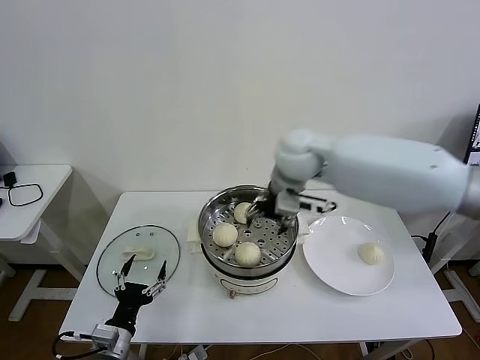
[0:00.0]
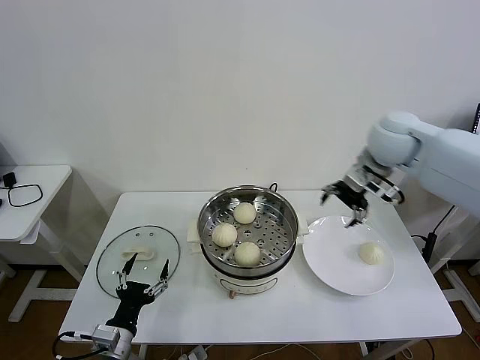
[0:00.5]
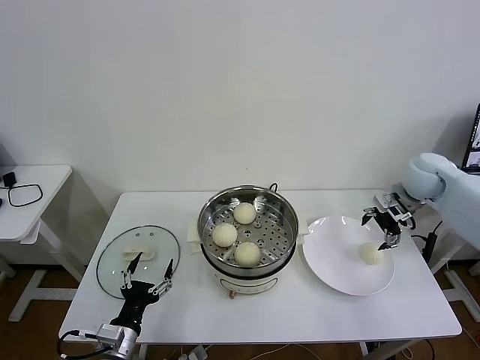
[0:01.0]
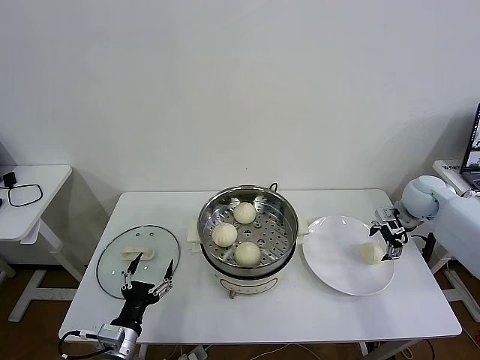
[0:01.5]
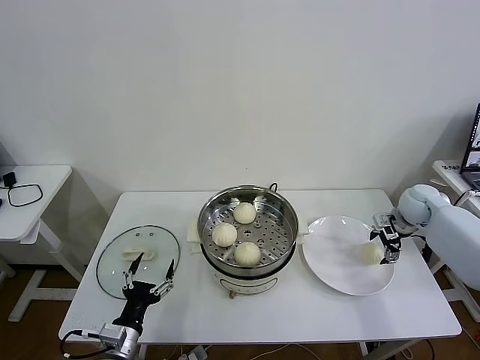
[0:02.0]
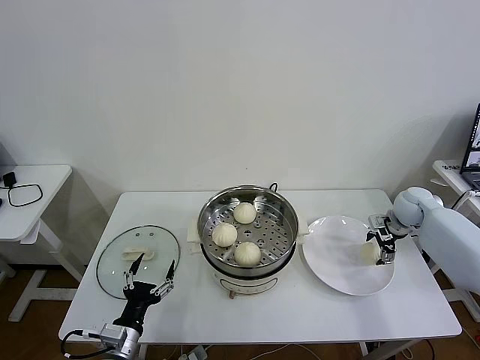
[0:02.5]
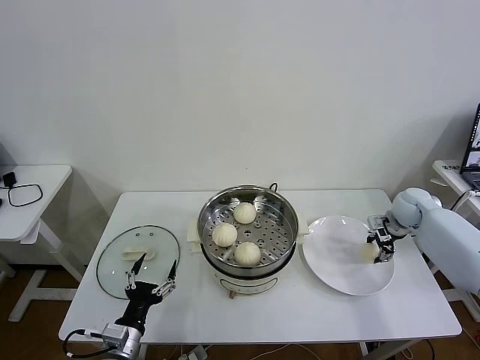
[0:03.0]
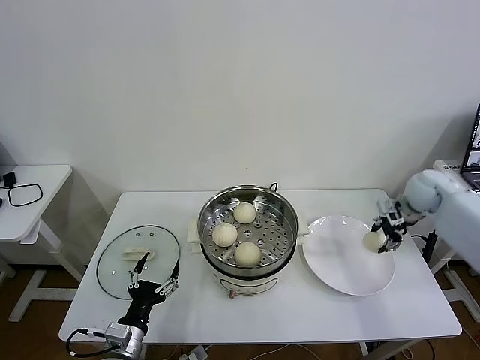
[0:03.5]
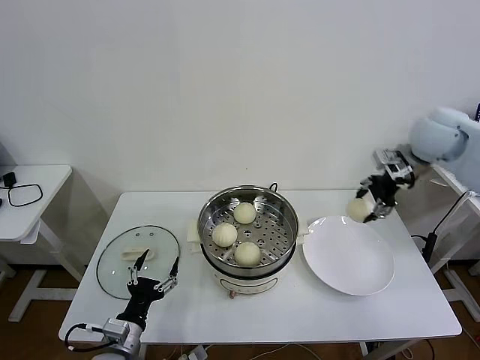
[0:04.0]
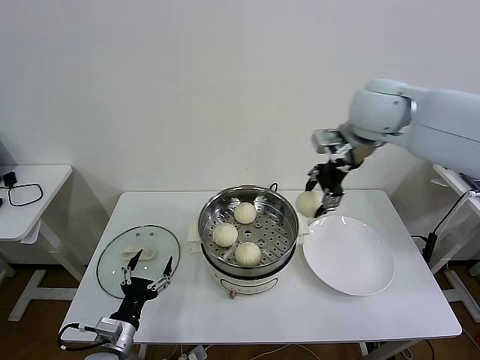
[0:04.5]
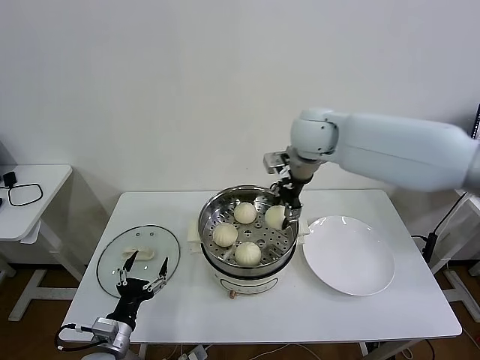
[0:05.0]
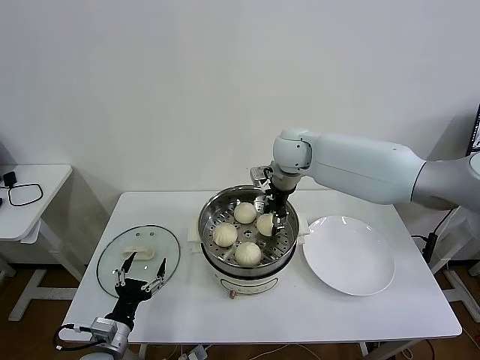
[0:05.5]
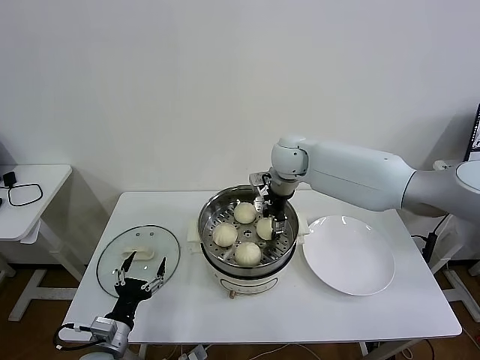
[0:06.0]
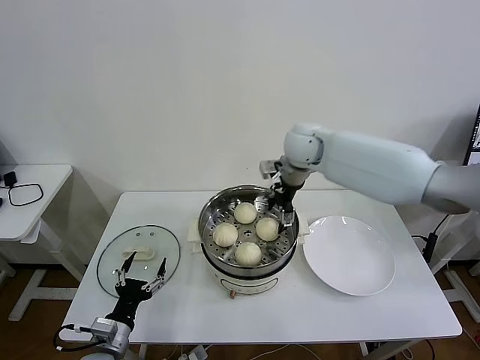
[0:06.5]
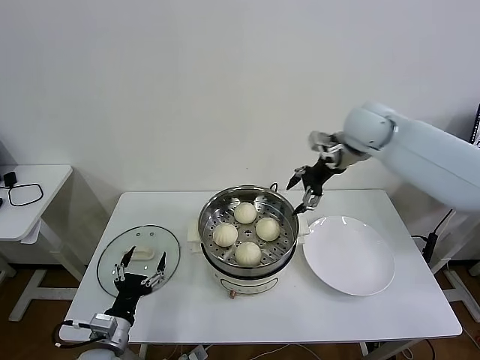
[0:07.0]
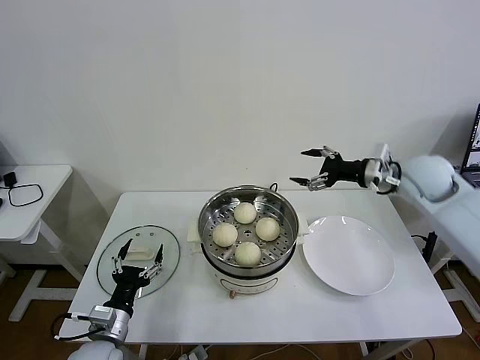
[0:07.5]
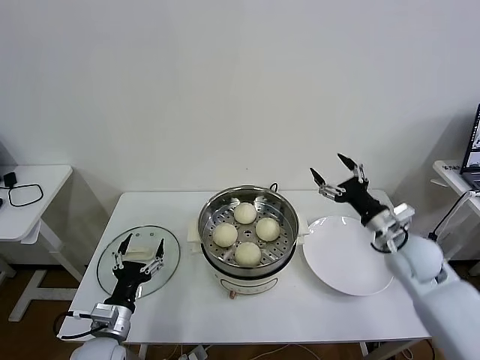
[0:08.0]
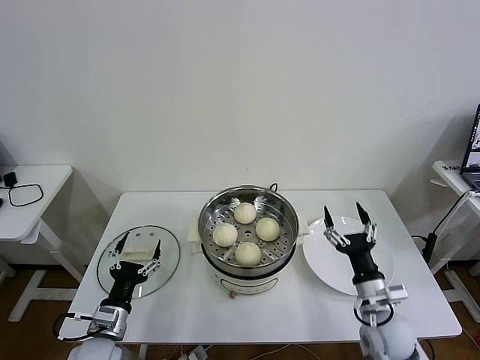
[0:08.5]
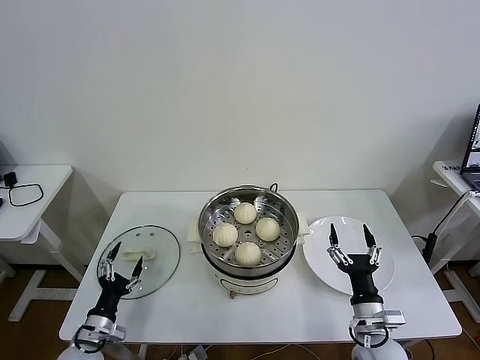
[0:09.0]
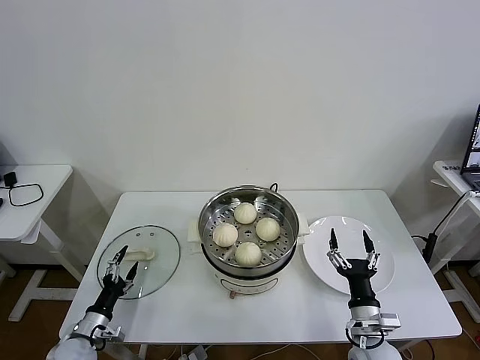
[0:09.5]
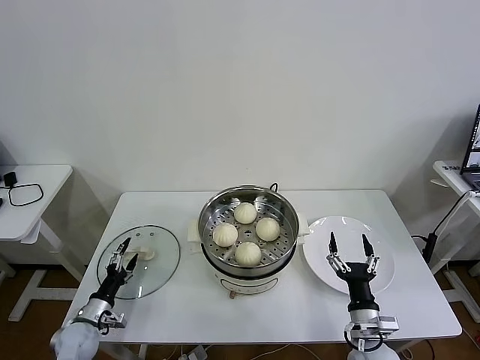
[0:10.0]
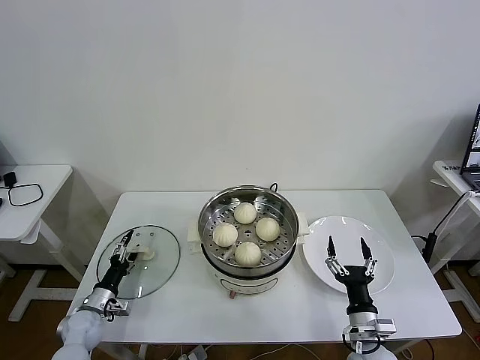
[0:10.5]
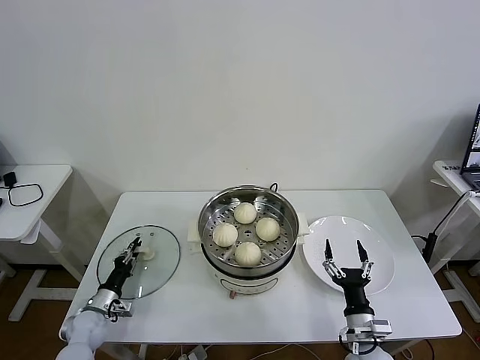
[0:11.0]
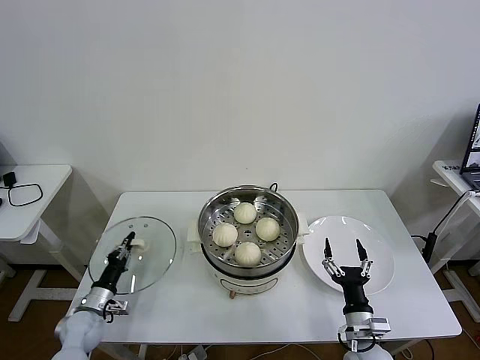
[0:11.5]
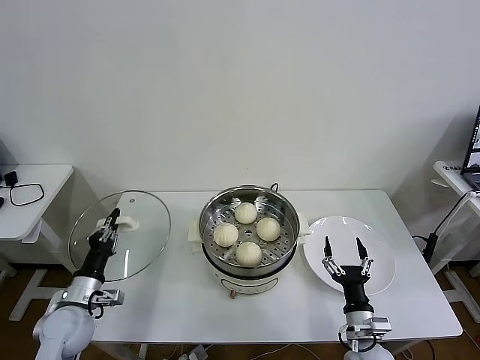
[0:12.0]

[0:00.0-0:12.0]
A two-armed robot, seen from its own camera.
Task of the whole recording: take steamed baozi put them in steamer then cover it.
Step, 0:00.0 to 0:03.0: Grasp the baozi in the plate with right gripper.
Step, 0:03.5 to 0:06.0: Place the baozi on the steamer with right gripper.
Step, 0:06.5 to 0:11.0: Grasp the pot lid with left gripper.
0:00.0 to 0:02.0: The right gripper moves to the right and downward, about 40 cm.
0:02.0 to 0:04.0: The right gripper is displaced upward and to the left by about 25 cm, and closes up.
0:04.0 to 0:06.0: The right gripper moves to the left and downward, approximately 25 cm, and opens.
0:06.0 to 0:08.0: The right gripper heads to the right, backward and downward, covering some 35 cm, and opens up.
0:08.0 to 0:10.0: The right gripper shifts some 25 cm downward, backward and to the left. The left gripper heads to the left, downward and forward, covering about 20 cm.
0:10.0 to 0:12.0: The left gripper shifts approximately 10 cm upward, and closes its fingers.

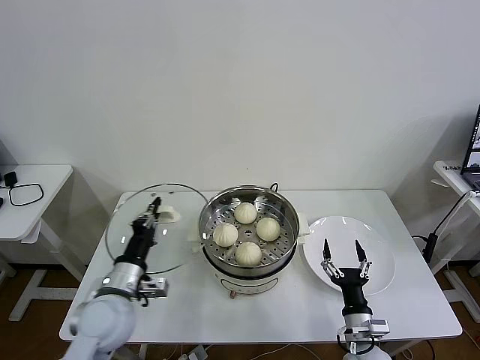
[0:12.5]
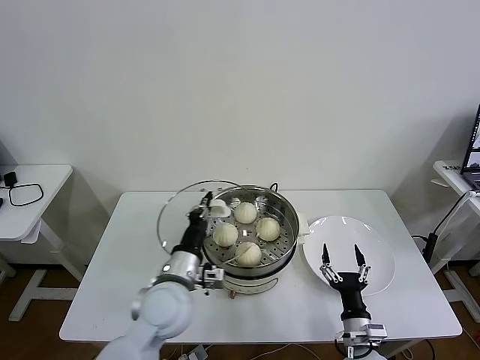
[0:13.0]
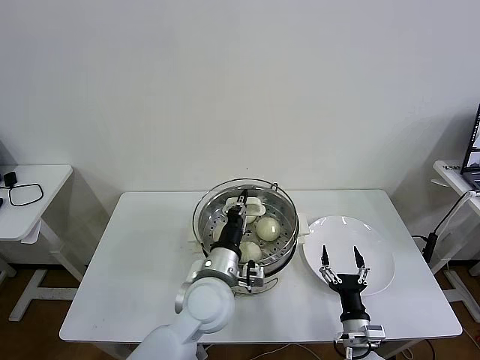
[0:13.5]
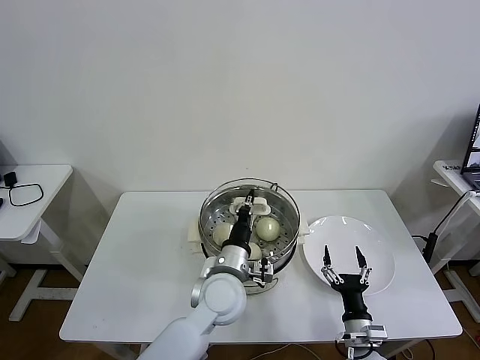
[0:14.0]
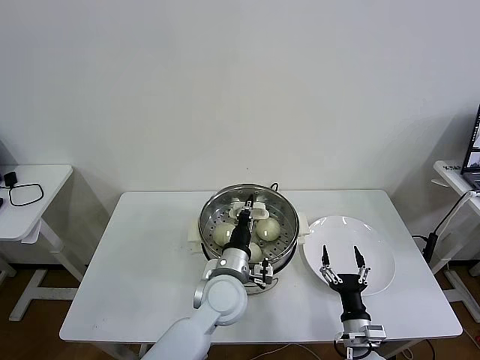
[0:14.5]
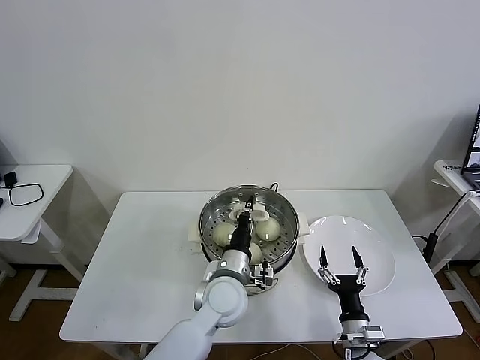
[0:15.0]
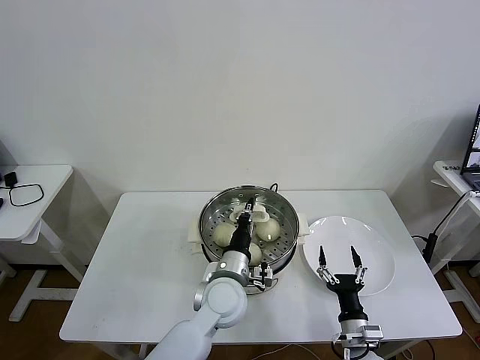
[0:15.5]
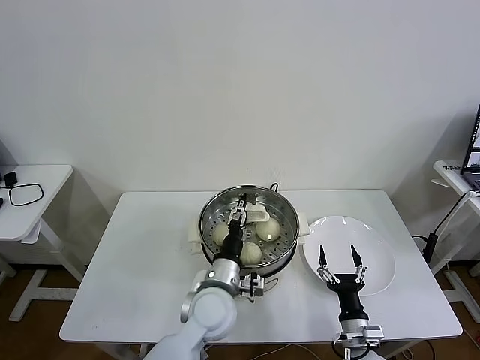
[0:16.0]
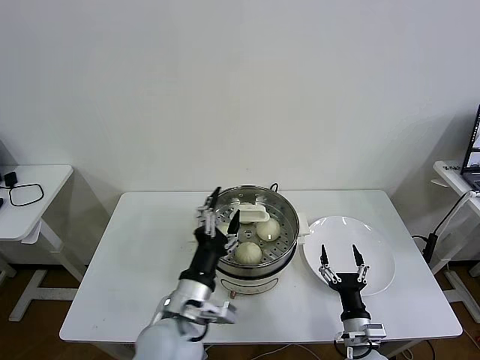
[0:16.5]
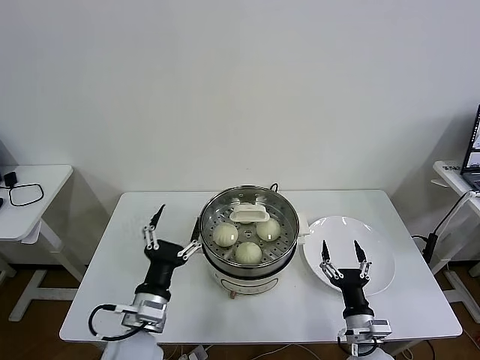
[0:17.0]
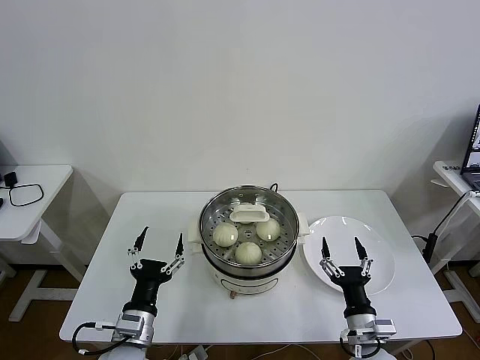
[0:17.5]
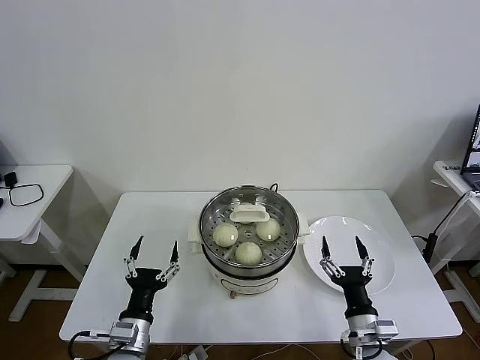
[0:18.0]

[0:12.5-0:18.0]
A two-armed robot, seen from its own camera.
Task of the whole recording: take steamed baozi put them in steamer then cover it.
Step, 0:12.5 to 0:15.5: Place the pot lid on the steamer with left gripper.
0:12.5 to 0:14.5: The left gripper moves to the right, about 20 cm.
0:14.5 to 0:16.0: The left gripper opens its fingers.
0:16.0 to 0:18.0: The left gripper travels to the left and backward by some 20 cm, and opens its fingers; the right gripper moves upward, some 5 cm.
